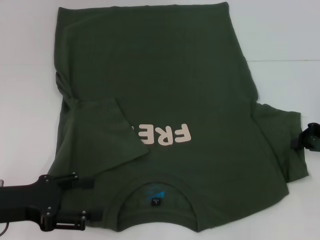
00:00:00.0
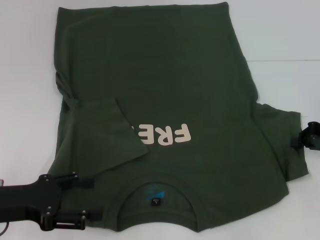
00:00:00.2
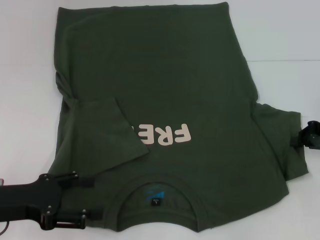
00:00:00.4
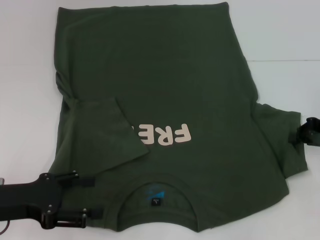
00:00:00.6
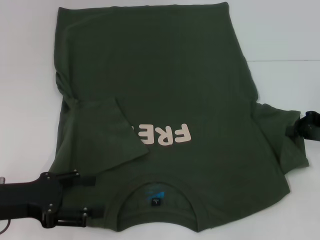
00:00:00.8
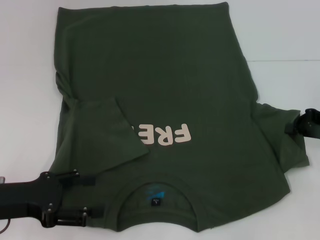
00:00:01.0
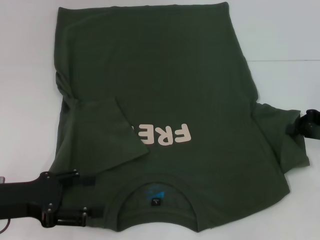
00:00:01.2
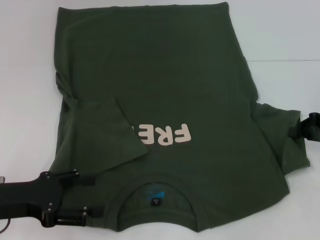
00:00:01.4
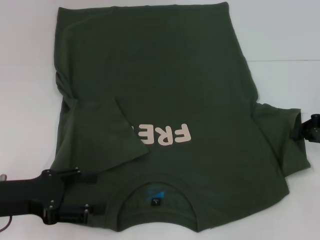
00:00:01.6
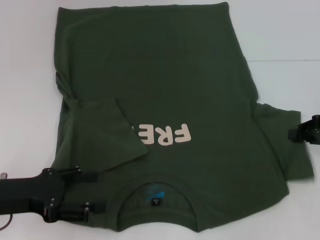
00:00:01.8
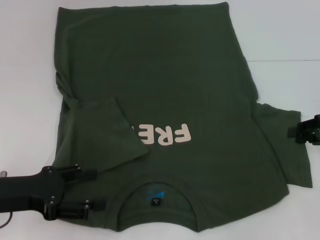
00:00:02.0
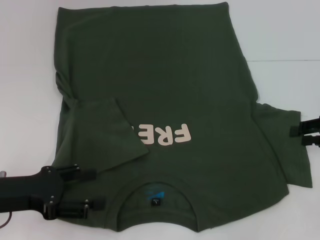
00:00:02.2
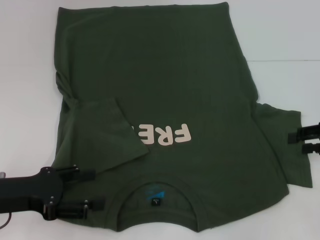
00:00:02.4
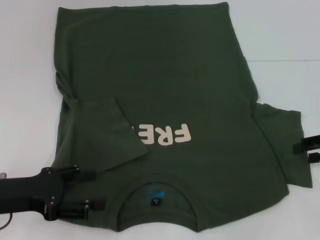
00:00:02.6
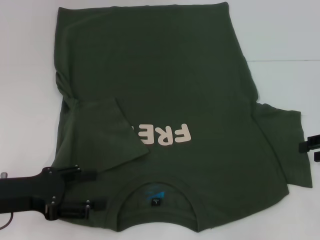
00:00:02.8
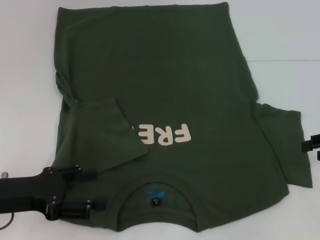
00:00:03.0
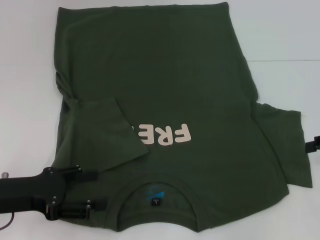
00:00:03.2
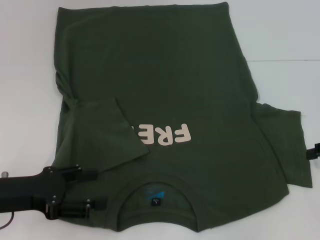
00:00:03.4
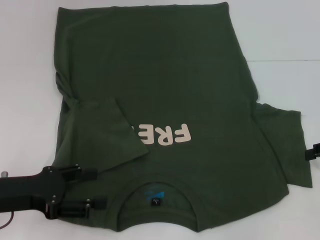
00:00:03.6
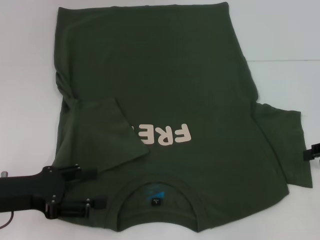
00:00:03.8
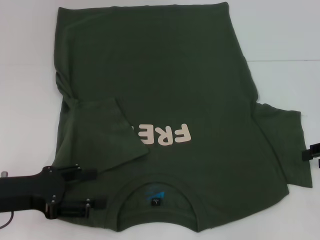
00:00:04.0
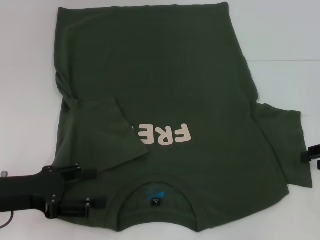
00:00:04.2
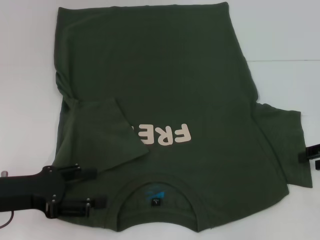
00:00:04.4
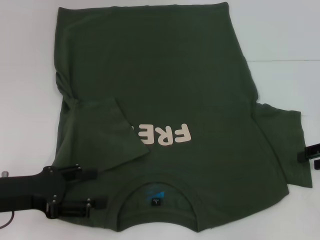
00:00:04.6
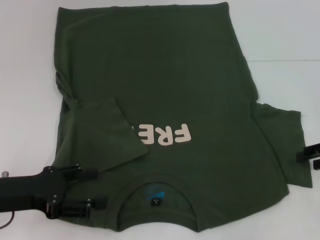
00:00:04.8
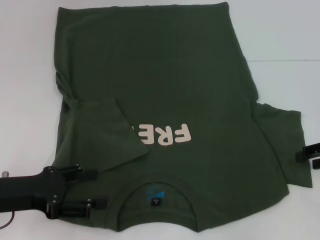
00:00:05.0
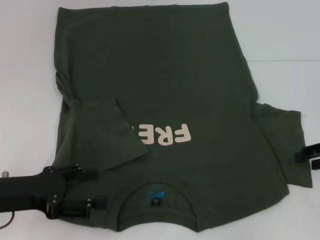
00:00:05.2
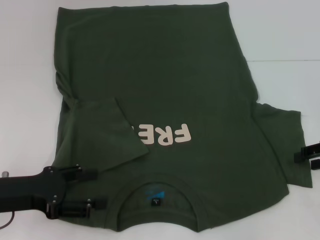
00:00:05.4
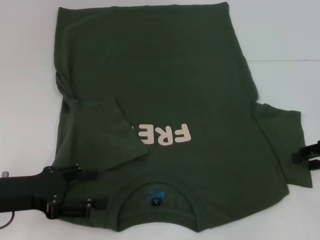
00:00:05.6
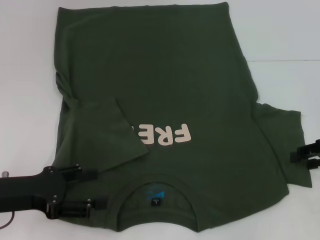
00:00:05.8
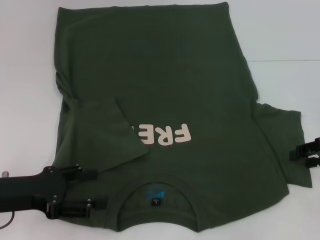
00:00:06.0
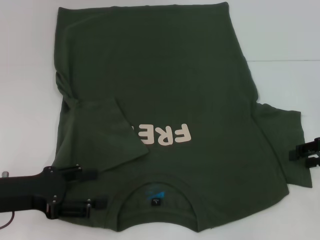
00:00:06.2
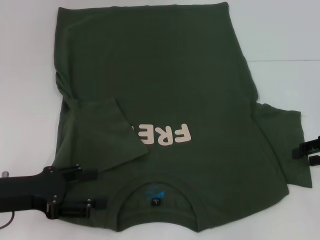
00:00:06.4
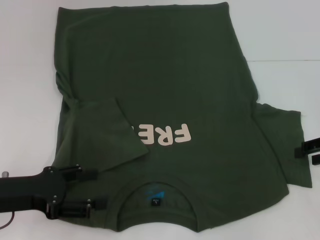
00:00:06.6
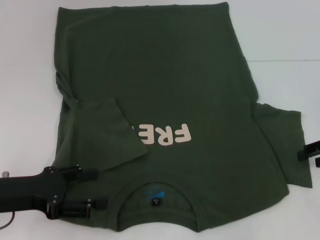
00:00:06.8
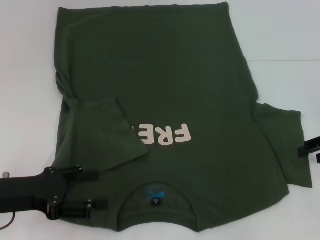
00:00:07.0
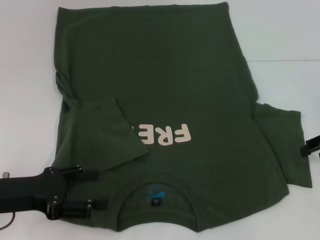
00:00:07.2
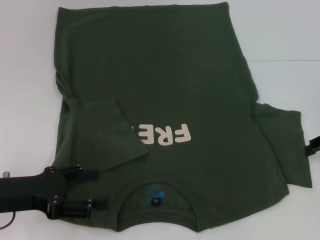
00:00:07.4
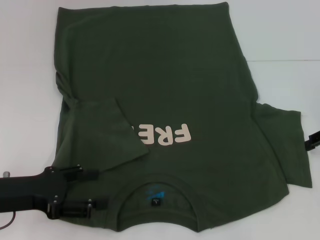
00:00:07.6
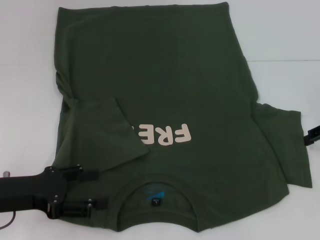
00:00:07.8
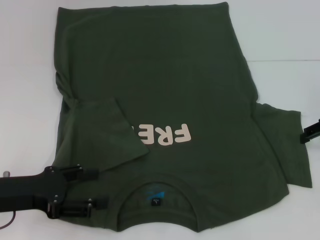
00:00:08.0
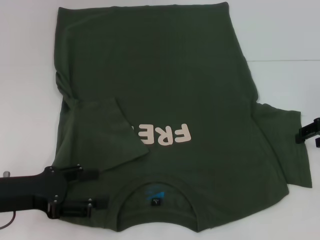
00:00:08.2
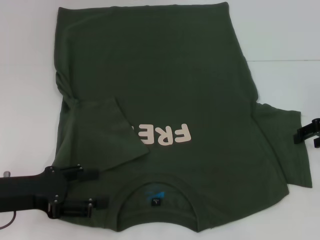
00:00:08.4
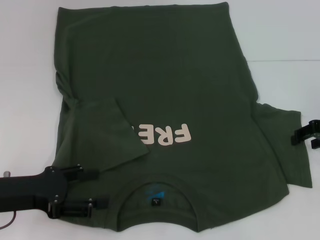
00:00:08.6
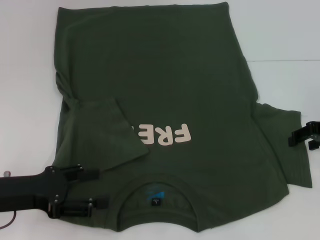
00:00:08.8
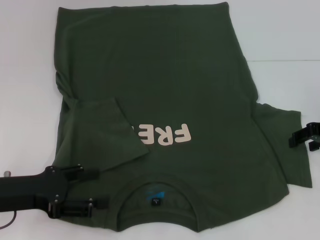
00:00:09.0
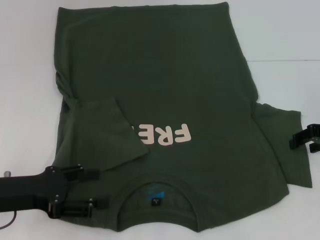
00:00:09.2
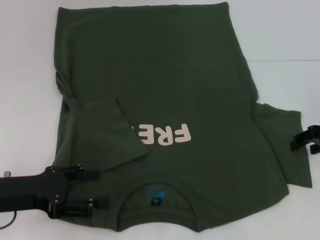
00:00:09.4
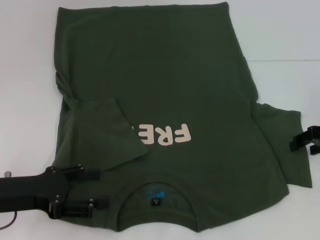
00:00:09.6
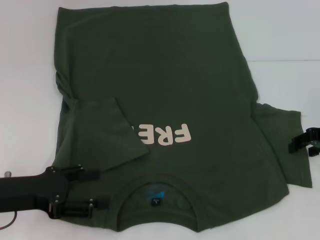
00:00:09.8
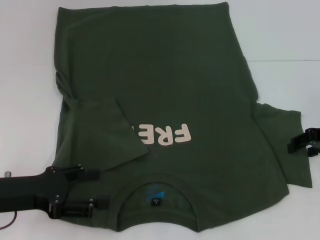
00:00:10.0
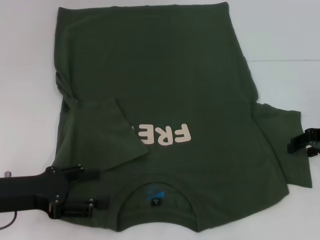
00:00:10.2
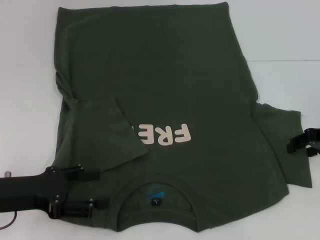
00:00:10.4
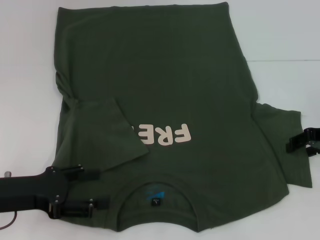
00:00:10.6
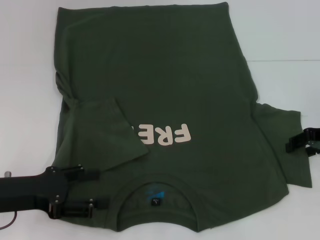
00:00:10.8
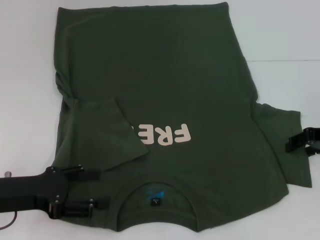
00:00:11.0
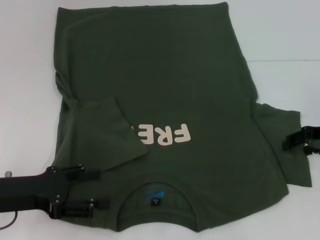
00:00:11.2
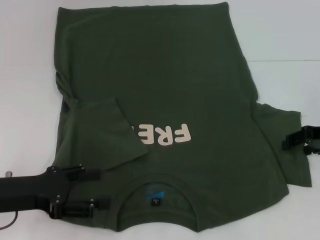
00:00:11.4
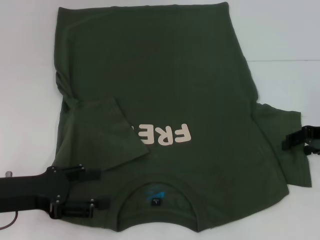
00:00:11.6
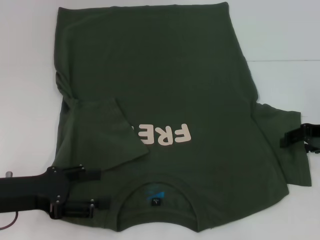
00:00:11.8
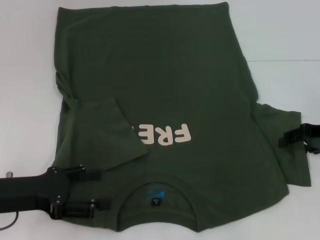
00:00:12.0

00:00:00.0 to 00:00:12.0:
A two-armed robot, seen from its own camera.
00:00:00.0 to 00:00:01.6: There are only small adjustments of the grippers.
00:00:01.6 to 00:00:03.0: The right gripper opens its fingers.
00:00:03.0 to 00:00:04.4: The grippers move only a little.
00:00:06.0 to 00:00:09.0: The grippers move only a little.
00:00:09.0 to 00:00:10.4: Both grippers stay put.
00:00:10.4 to 00:00:12.0: There are only small adjustments of the grippers.

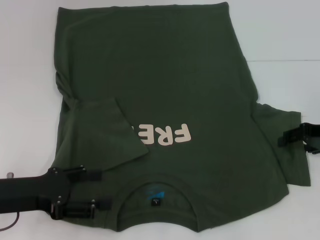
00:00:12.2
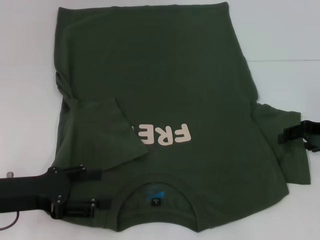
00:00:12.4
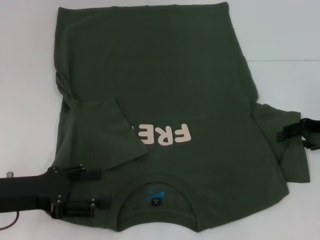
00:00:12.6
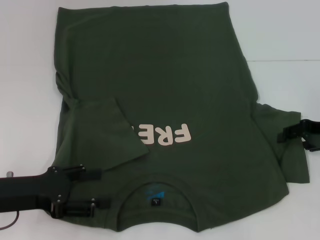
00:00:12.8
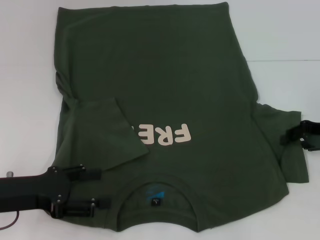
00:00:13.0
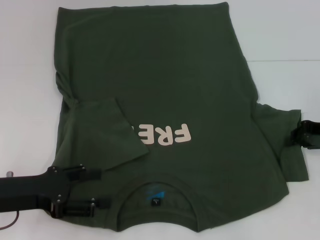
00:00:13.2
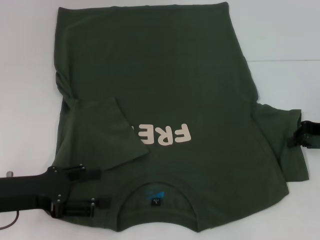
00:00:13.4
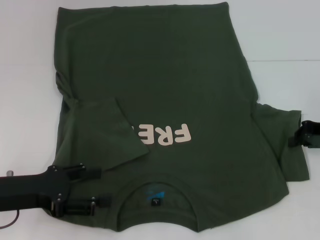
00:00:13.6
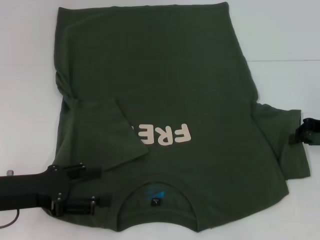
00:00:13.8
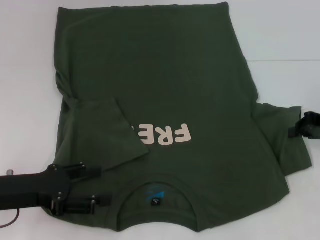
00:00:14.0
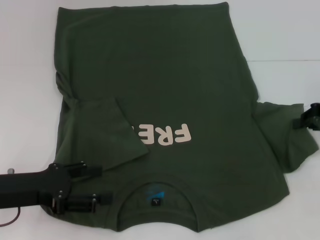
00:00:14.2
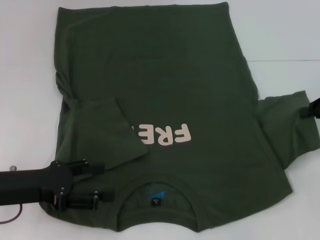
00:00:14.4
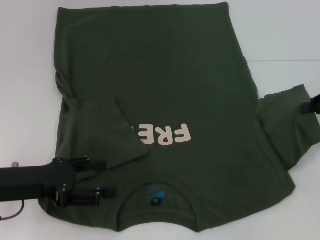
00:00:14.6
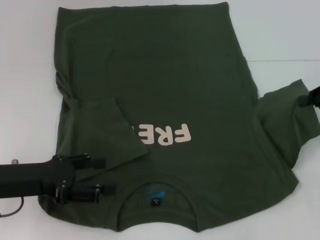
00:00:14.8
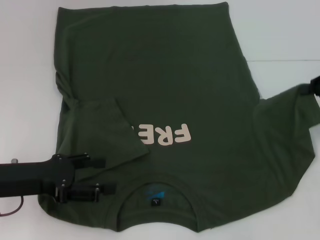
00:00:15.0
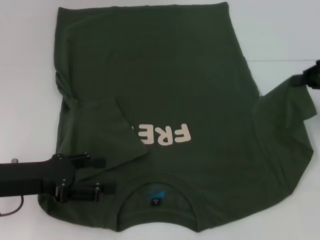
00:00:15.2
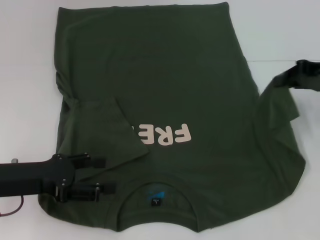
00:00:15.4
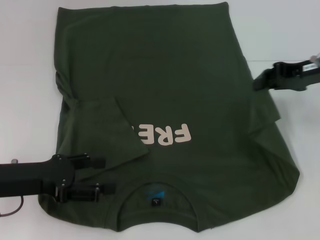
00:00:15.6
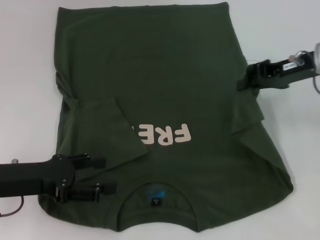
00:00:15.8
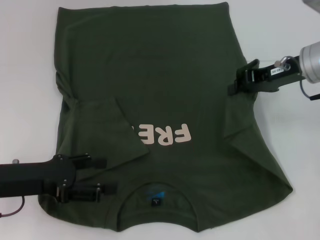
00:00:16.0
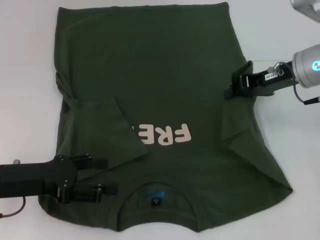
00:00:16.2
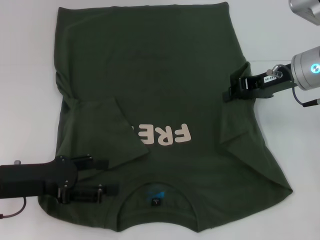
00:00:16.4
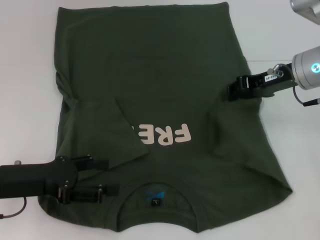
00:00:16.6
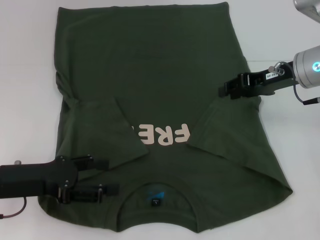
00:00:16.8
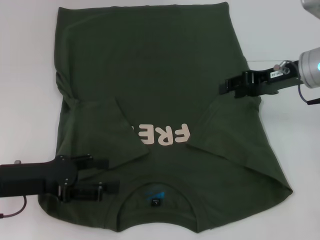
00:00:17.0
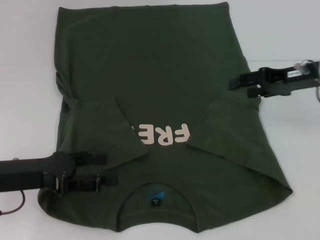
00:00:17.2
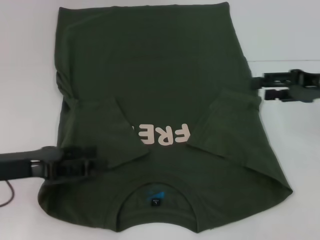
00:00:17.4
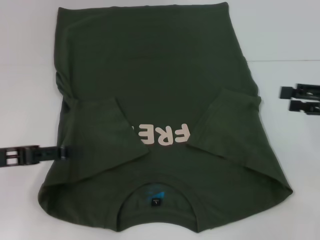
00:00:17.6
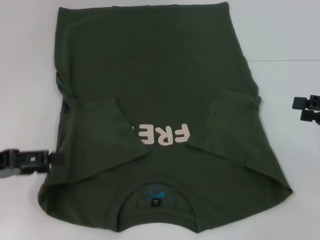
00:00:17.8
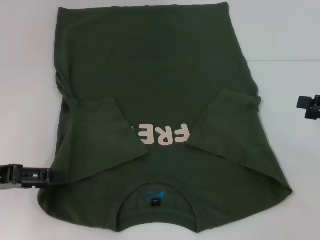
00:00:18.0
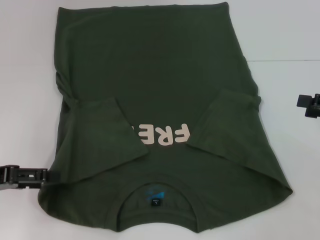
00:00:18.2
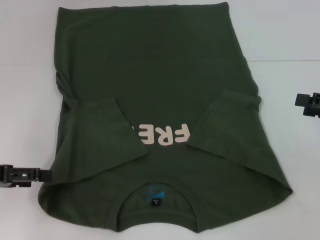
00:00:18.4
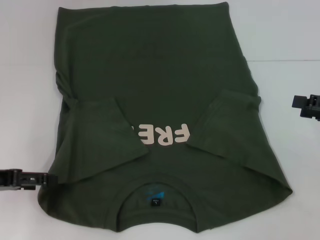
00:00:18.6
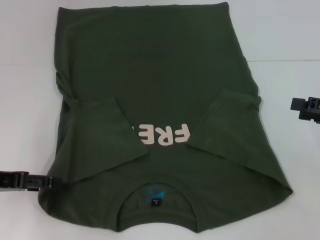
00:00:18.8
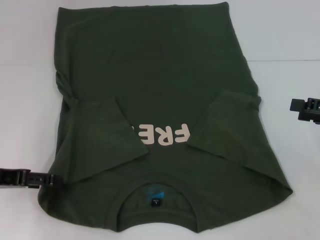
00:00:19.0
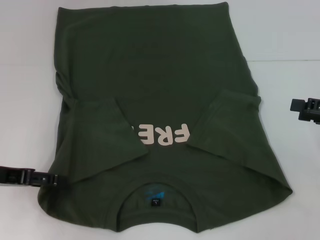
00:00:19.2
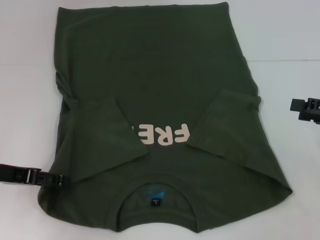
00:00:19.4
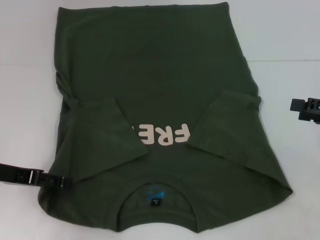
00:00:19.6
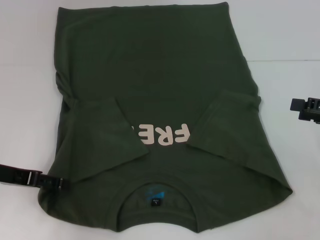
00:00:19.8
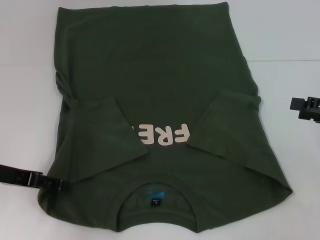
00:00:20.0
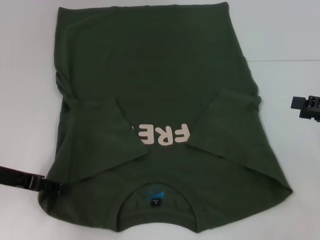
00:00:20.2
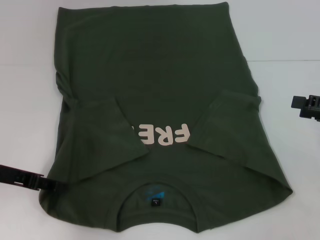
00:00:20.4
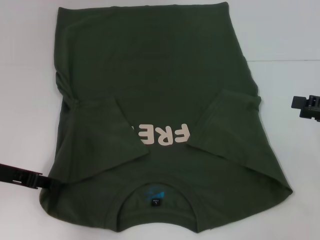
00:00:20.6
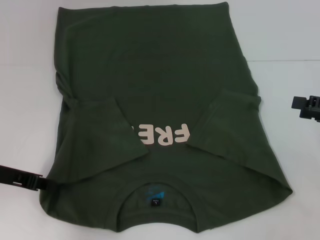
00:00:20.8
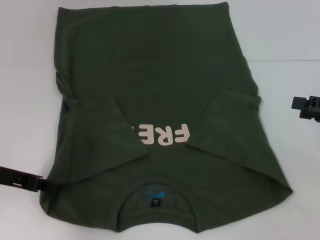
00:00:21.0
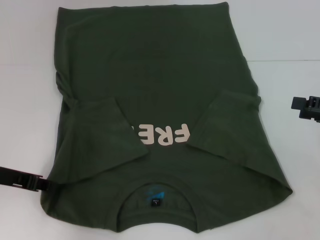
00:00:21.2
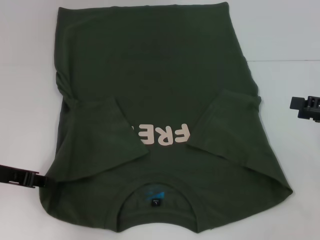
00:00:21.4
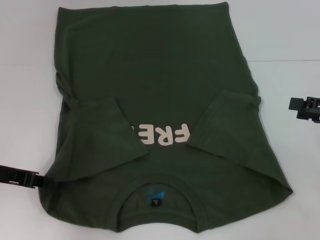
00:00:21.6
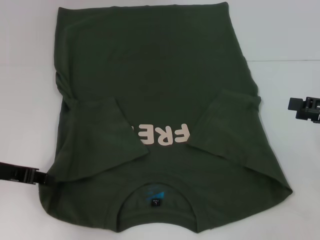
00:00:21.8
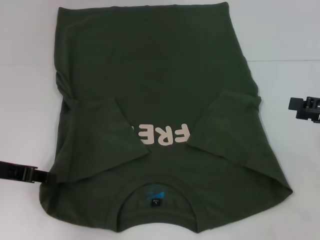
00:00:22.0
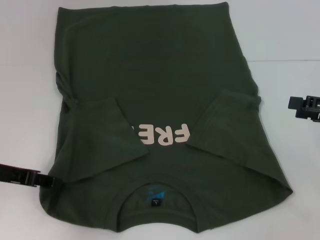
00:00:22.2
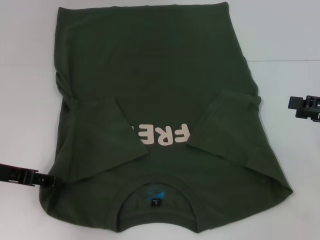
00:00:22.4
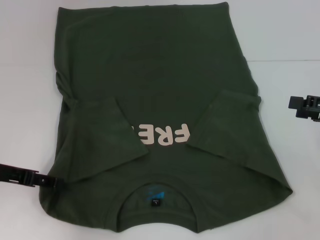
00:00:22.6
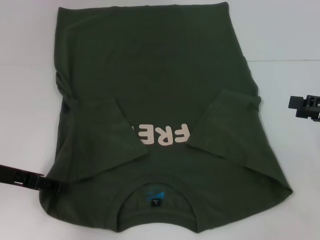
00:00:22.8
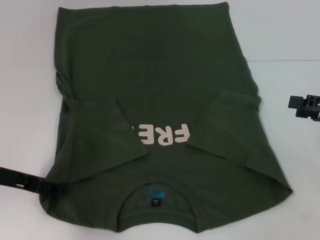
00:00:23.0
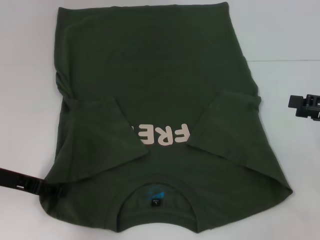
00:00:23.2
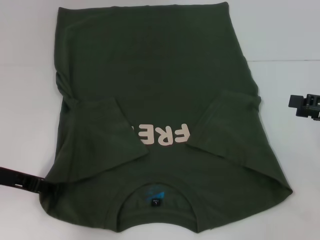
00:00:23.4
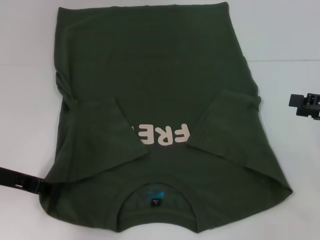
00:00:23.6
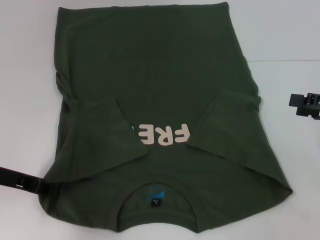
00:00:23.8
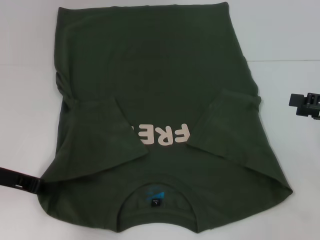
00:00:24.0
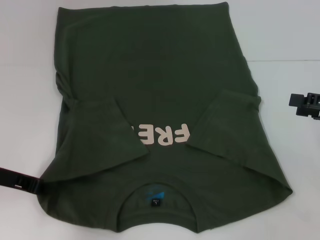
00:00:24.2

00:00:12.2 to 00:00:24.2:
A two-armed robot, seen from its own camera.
Step, 00:00:12.2 to 00:00:16.6: Fold the bottom right sleeve with your right hand.
00:00:12.2 to 00:00:13.8: The right gripper closes.
00:00:13.8 to 00:00:15.2: The right gripper goes about 5 cm upward.
00:00:15.2 to 00:00:16.6: The right gripper travels to the left by about 10 cm.
00:00:16.6 to 00:00:18.2: The right gripper moves to the right and backward, roughly 20 cm, and opens up. Meanwhile the left gripper travels to the left by some 5 cm.
00:00:18.2 to 00:00:19.8: The grippers move only a little.
00:00:19.8 to 00:00:21.2: The left gripper closes up.
00:00:21.2 to 00:00:22.6: The left gripper opens its fingers.
00:00:22.6 to 00:00:24.2: The left gripper closes its fingers.
